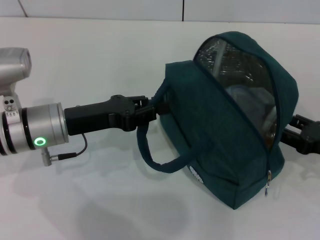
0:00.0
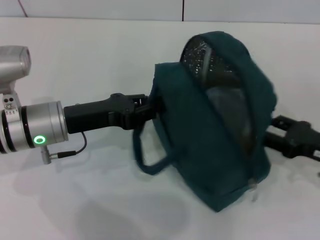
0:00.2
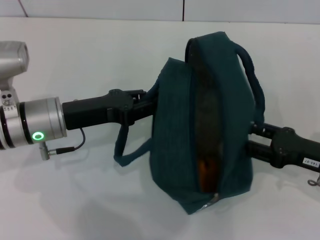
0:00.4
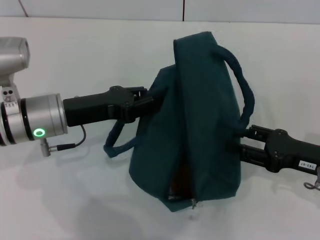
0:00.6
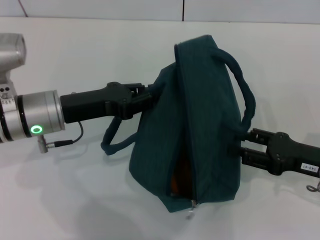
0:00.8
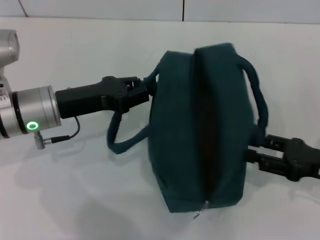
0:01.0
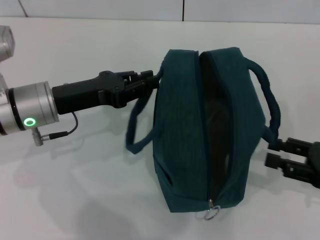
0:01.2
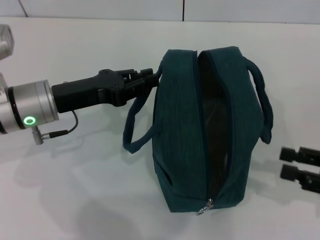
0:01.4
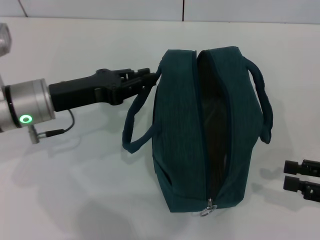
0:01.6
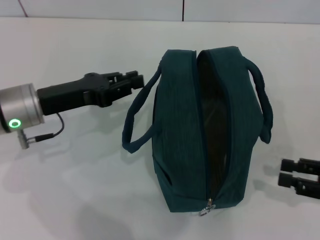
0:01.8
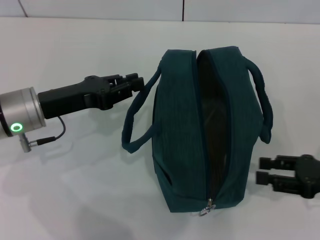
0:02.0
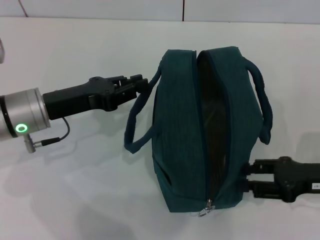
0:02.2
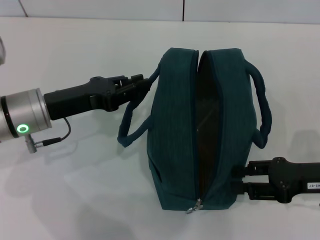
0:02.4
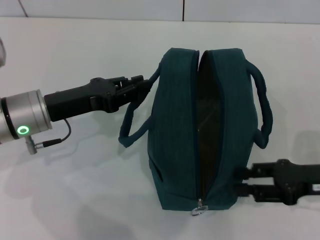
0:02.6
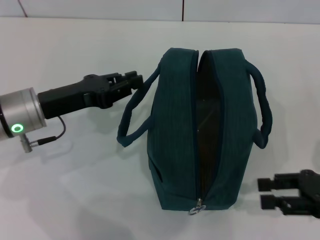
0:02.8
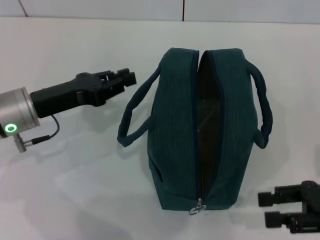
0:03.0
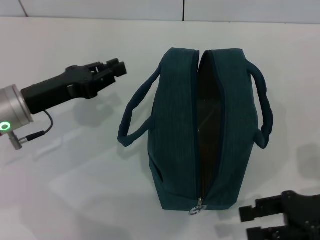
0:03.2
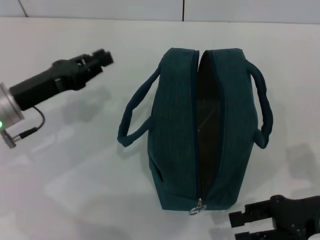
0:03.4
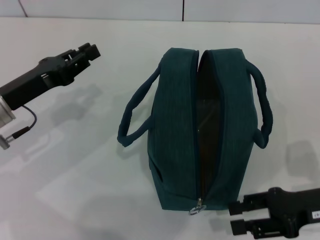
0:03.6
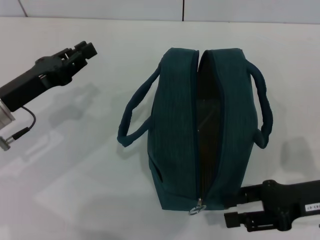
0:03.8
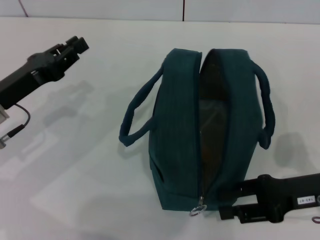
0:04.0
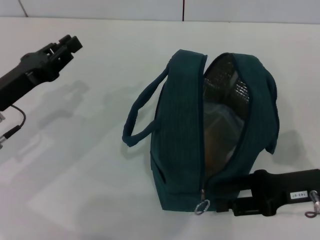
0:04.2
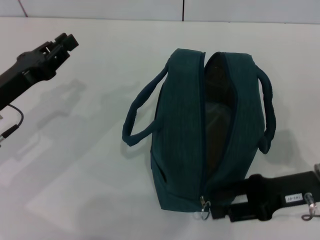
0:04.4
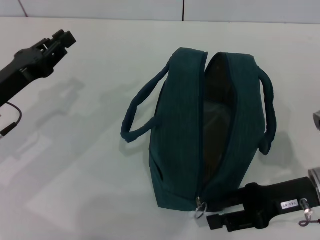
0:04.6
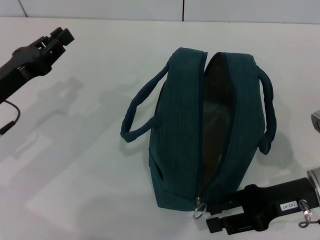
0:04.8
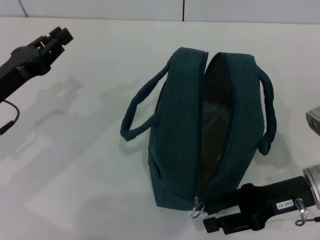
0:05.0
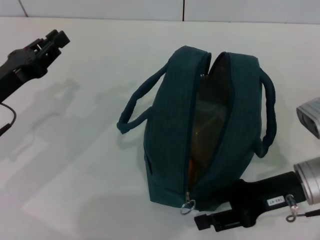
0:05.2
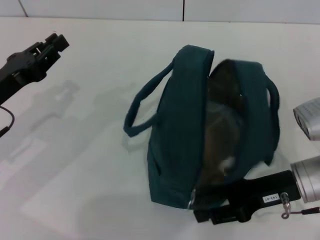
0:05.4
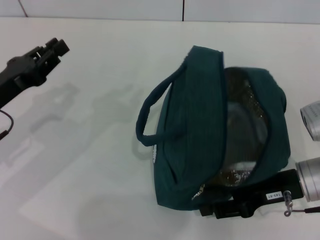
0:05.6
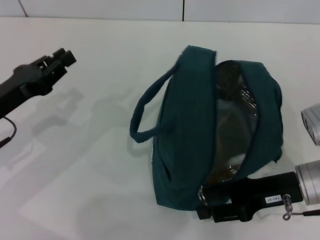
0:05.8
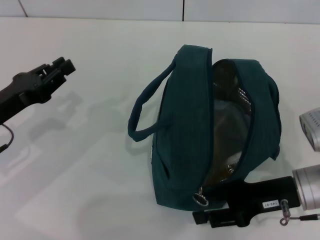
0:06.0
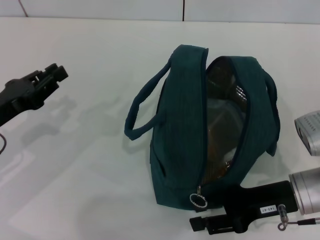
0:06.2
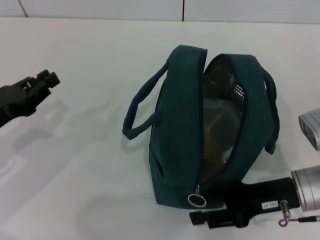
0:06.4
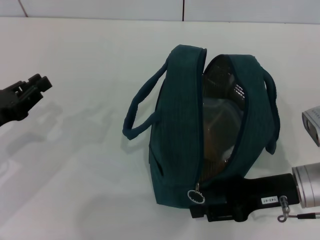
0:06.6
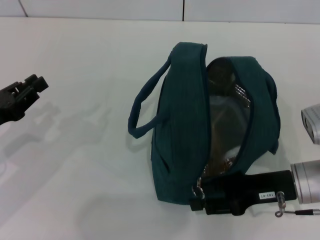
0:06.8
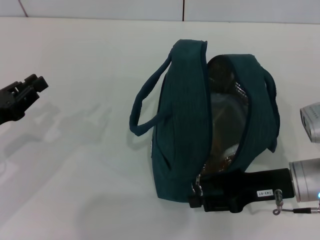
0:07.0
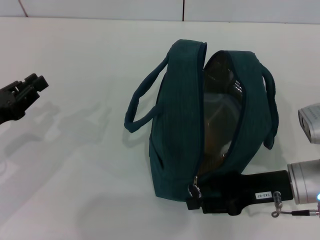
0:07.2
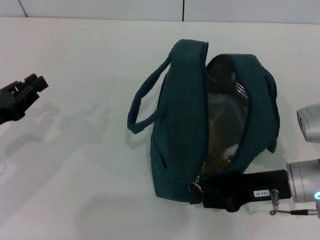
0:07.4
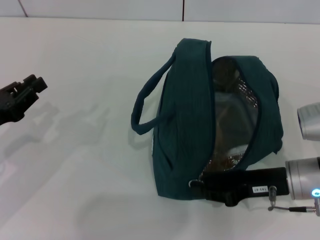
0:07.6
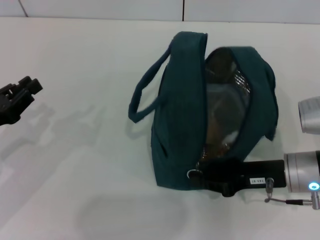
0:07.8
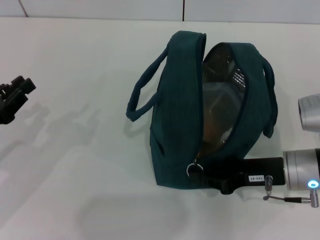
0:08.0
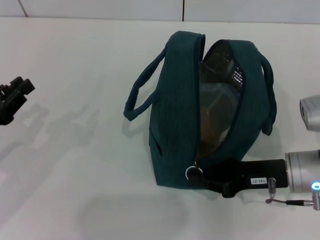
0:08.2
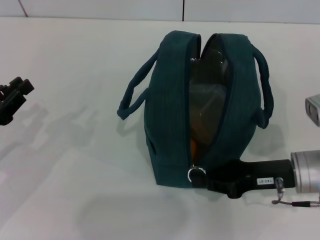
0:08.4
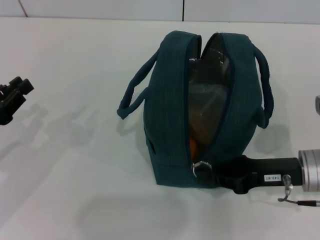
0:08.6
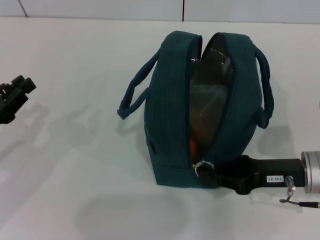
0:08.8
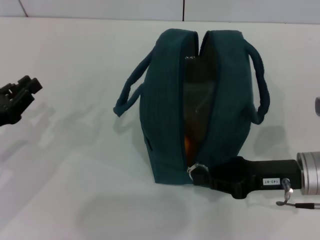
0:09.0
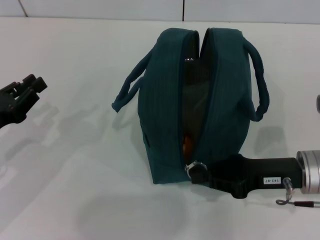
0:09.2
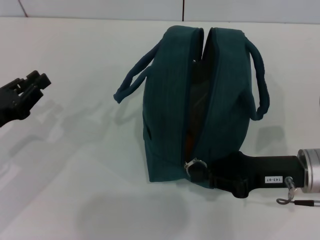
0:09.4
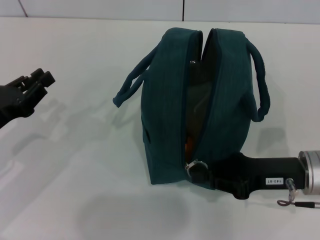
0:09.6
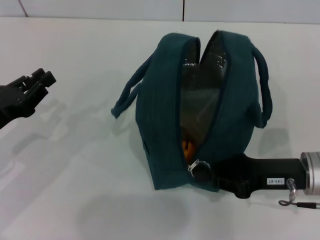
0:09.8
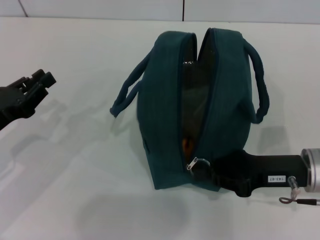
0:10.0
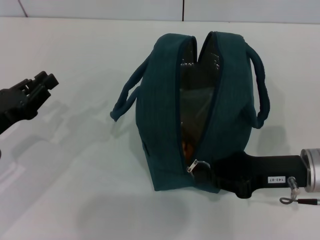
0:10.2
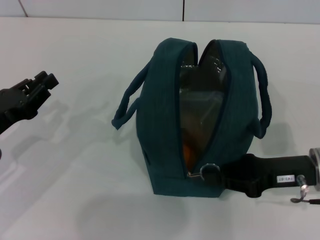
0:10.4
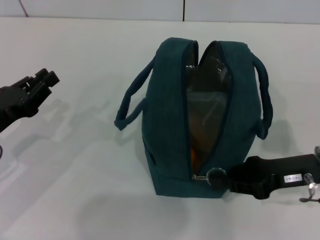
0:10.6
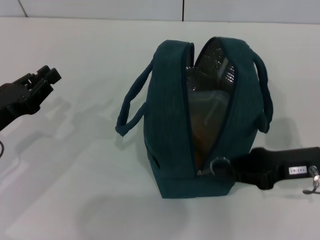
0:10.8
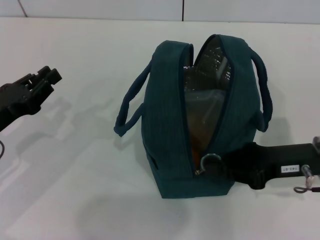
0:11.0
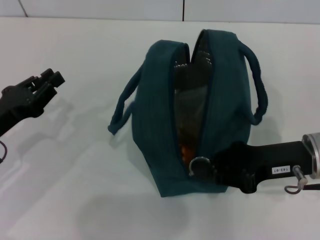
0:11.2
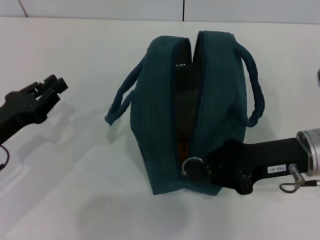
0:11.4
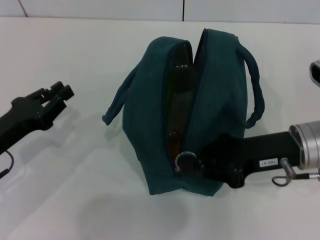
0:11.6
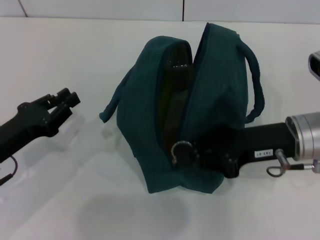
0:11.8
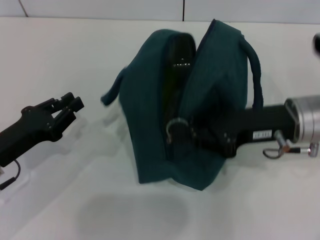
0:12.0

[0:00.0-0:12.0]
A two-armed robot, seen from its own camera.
0:00.0 to 0:01.6: The right gripper shifts by about 5 cm.
0:03.0 to 0:04.4: The right gripper moves to the left, some 5 cm.
0:04.4 to 0:06.0: The grippers make only small movements.
0:06.0 to 0:10.4: The grippers make only small movements.
0:10.4 to 0:12.0: The right gripper heads upward, covering approximately 5 cm.

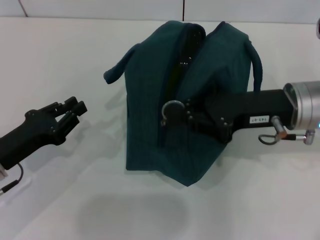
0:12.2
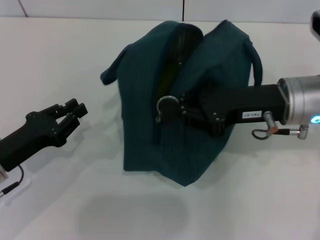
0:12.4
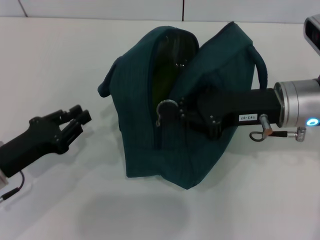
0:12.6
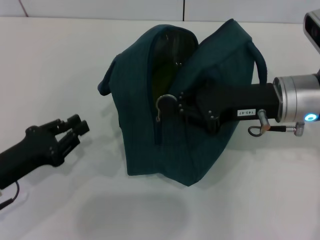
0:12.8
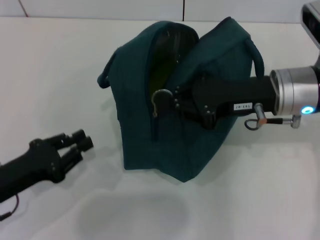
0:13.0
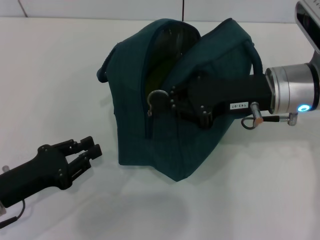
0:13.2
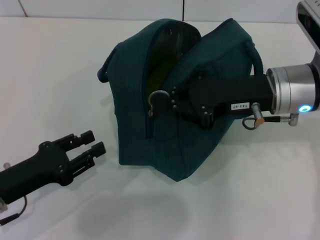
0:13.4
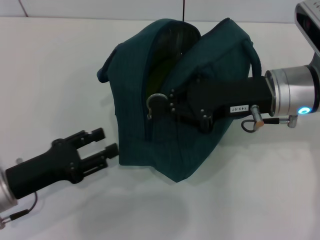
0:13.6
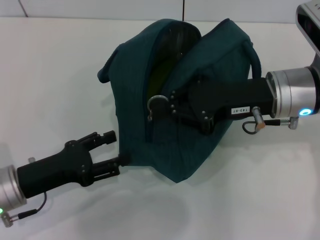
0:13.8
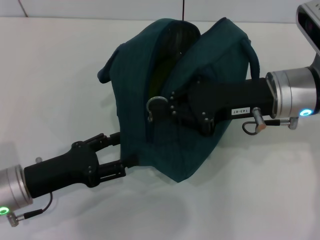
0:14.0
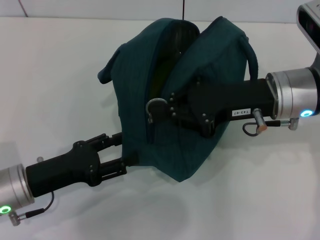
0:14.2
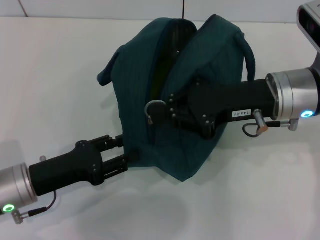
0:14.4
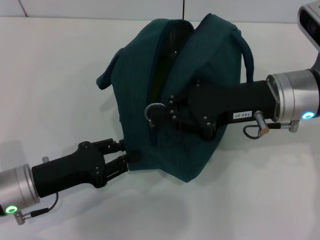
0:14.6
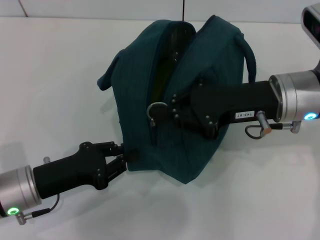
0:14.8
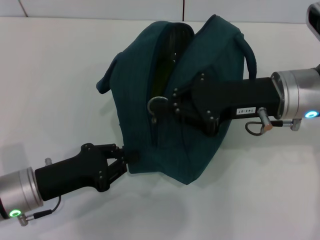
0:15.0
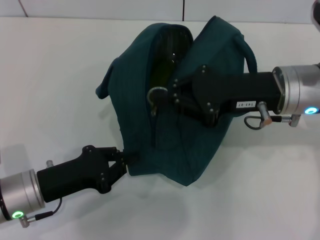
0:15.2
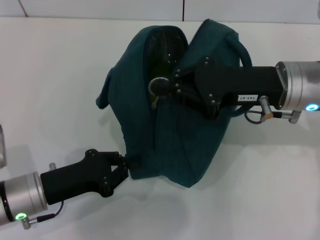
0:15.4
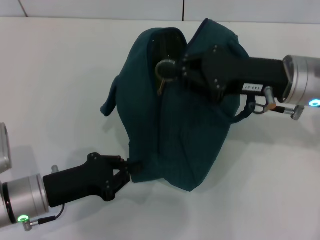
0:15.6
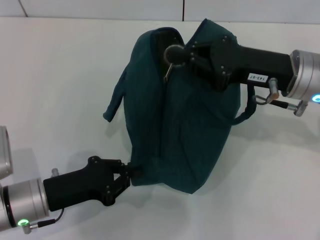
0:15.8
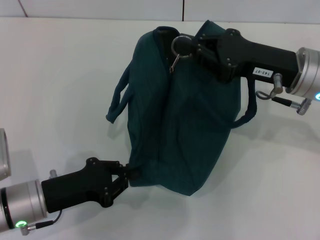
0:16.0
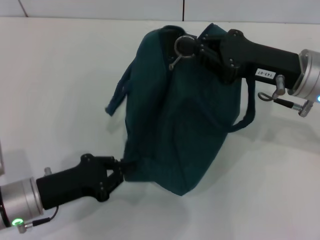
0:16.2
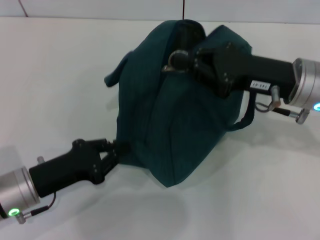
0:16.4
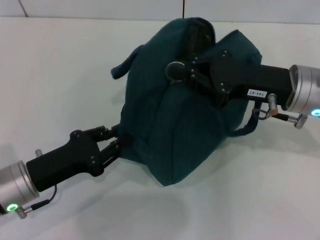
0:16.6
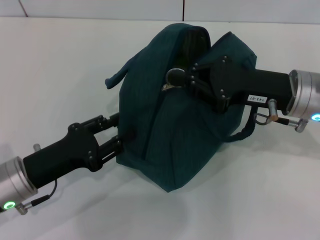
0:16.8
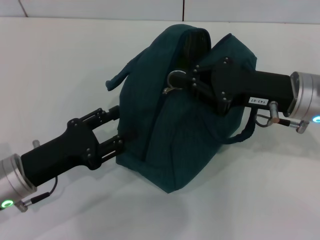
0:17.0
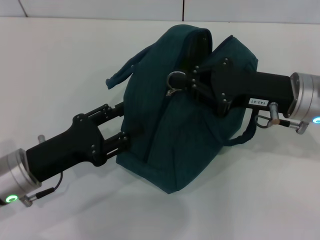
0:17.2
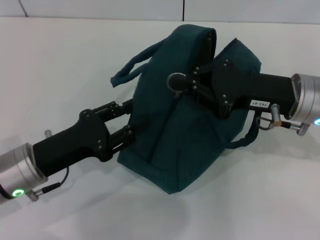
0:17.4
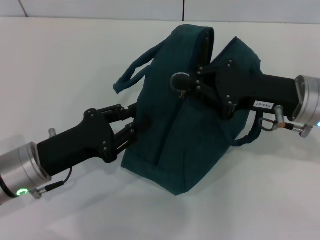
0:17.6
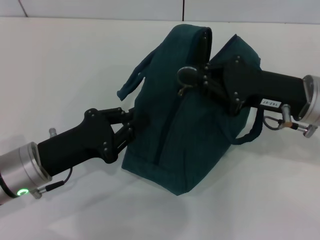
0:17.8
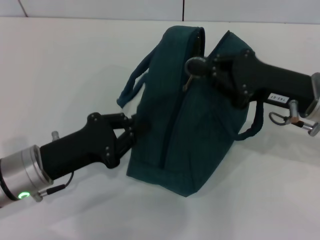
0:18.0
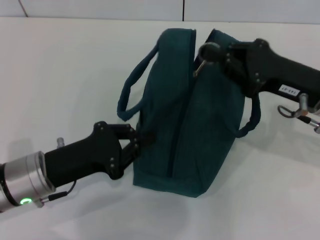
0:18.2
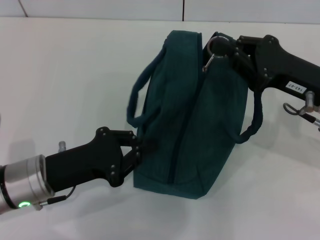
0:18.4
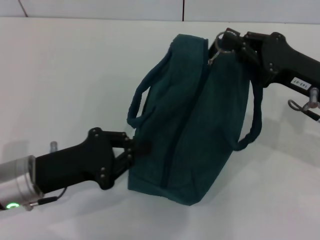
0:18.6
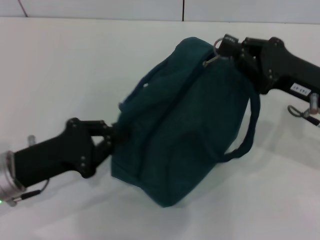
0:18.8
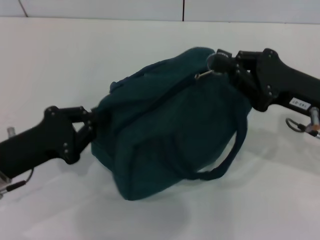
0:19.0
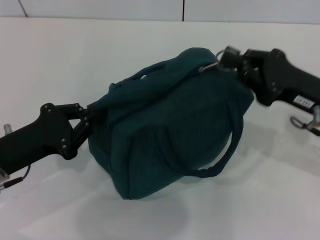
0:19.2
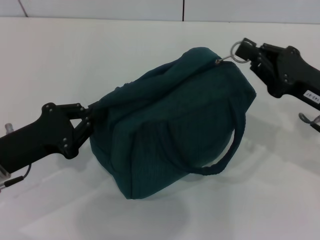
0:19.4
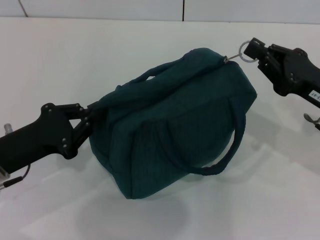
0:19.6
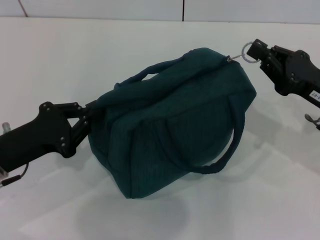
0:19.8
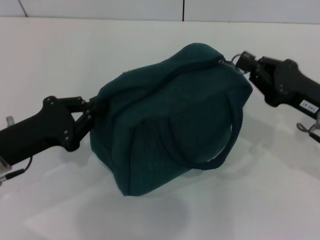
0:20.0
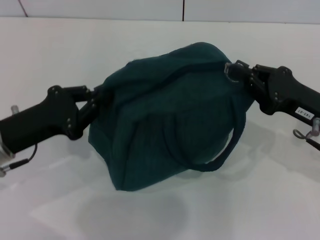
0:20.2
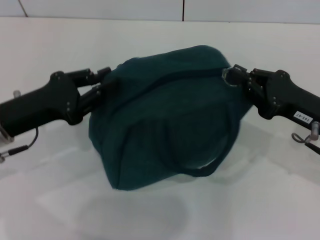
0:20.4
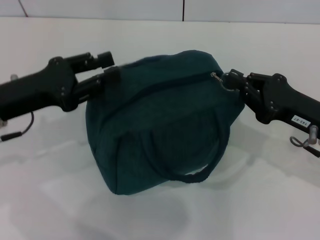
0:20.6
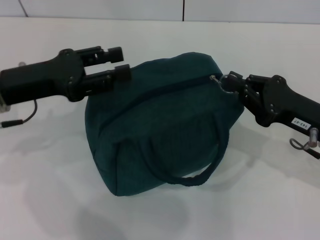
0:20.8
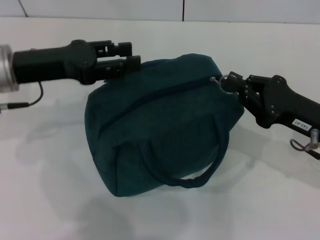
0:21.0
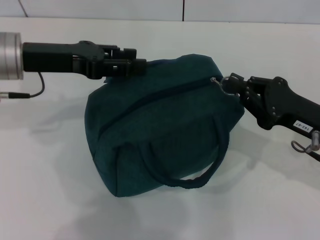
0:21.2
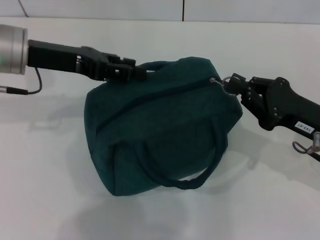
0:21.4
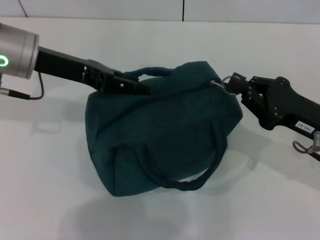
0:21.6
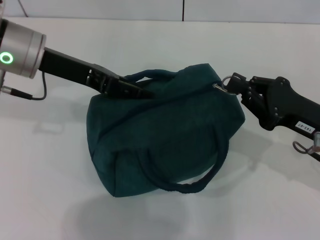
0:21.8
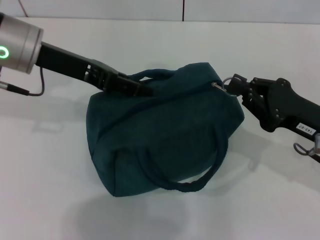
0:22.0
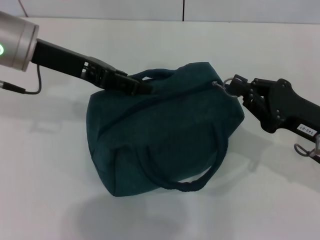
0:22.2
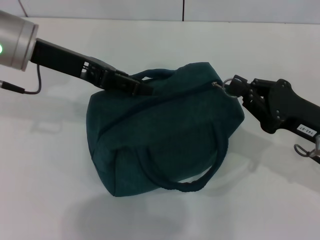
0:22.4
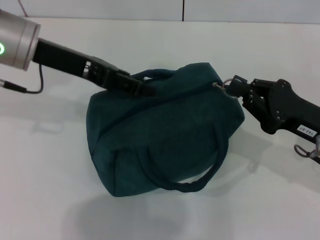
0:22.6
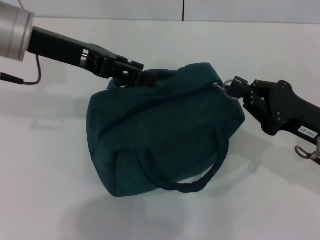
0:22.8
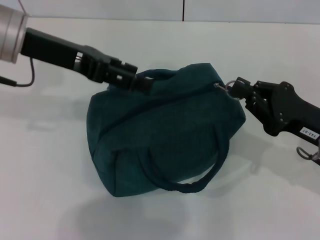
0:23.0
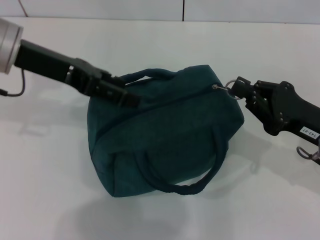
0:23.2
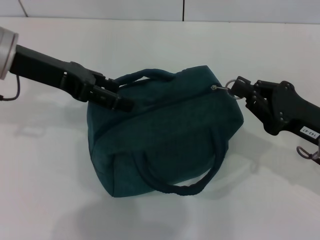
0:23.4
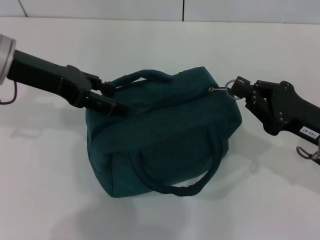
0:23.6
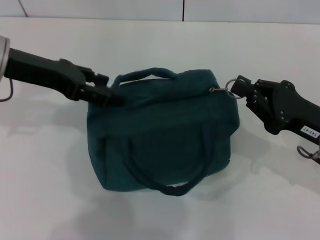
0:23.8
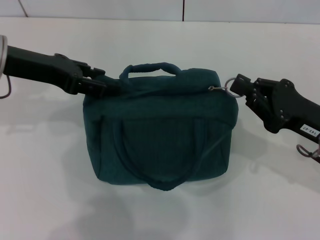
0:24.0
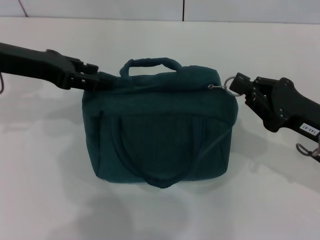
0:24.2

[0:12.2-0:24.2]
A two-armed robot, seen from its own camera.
0:12.2 to 0:13.8: The left gripper opens its fingers.
0:13.8 to 0:15.2: The left gripper closes its fingers.
0:15.2 to 0:16.6: There are only small adjustments of the grippers.
0:16.6 to 0:18.2: The left gripper opens, then closes again.
0:18.2 to 0:19.8: The right gripper changes place by about 5 cm; the left gripper heads to the left, covering approximately 5 cm.
0:19.8 to 0:21.2: The left gripper heads forward and upward, covering some 15 cm, and opens up.
0:22.6 to 0:24.2: The left gripper shifts roughly 5 cm to the left.
